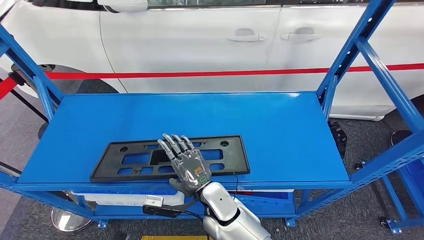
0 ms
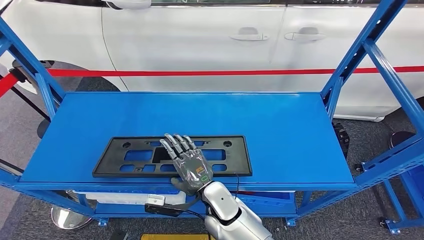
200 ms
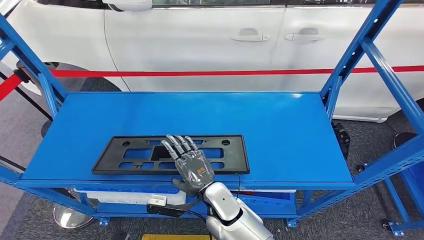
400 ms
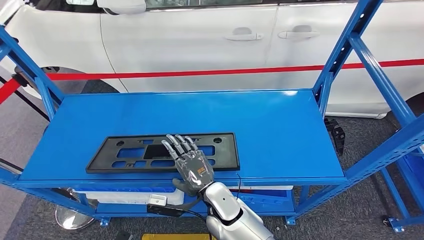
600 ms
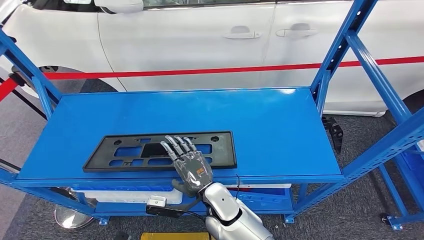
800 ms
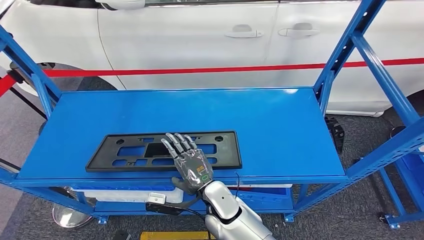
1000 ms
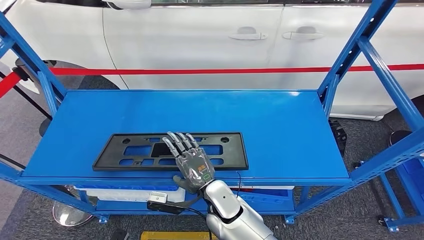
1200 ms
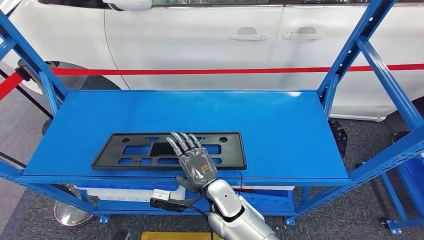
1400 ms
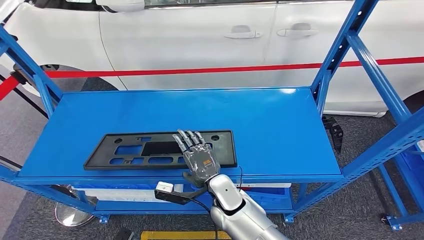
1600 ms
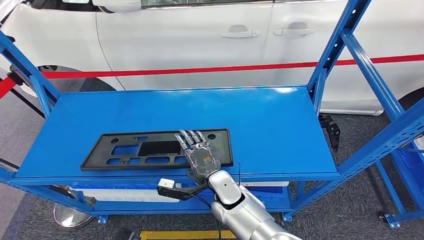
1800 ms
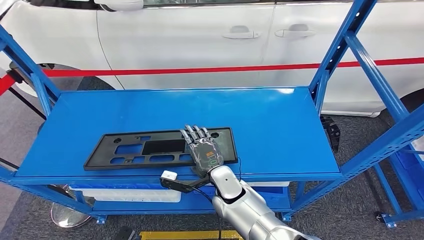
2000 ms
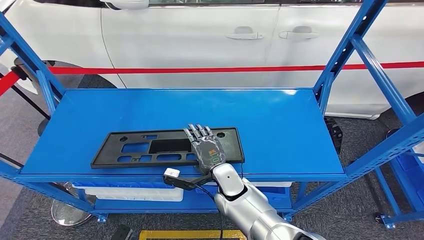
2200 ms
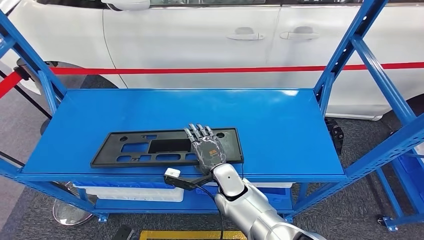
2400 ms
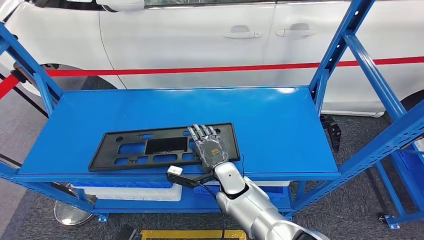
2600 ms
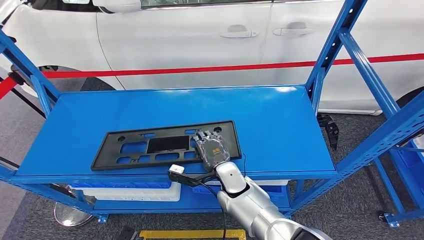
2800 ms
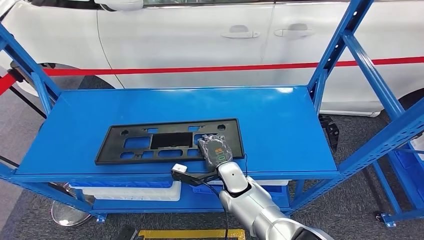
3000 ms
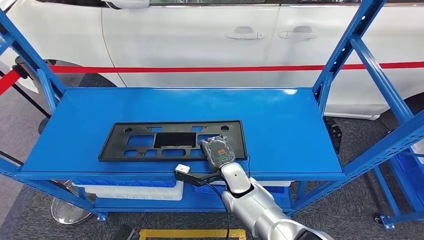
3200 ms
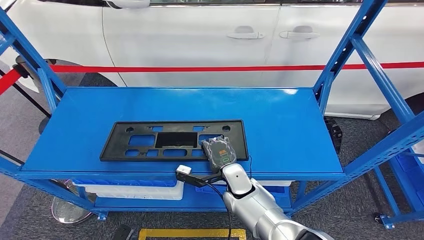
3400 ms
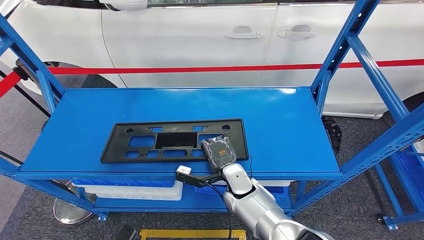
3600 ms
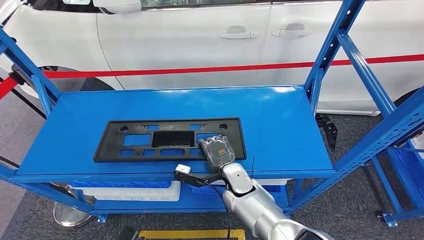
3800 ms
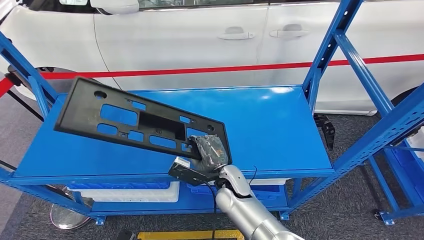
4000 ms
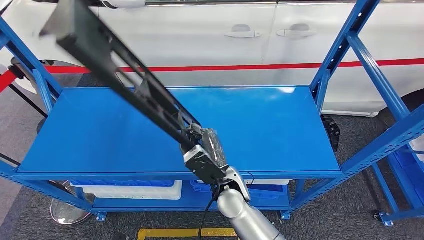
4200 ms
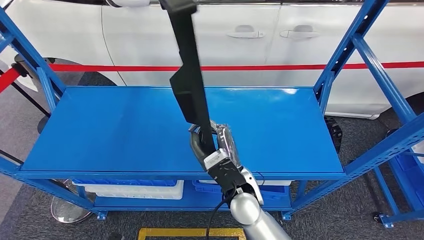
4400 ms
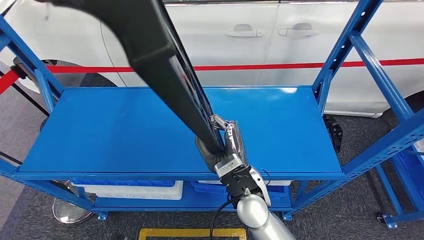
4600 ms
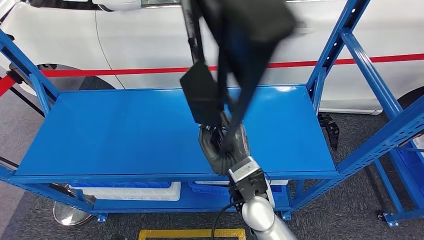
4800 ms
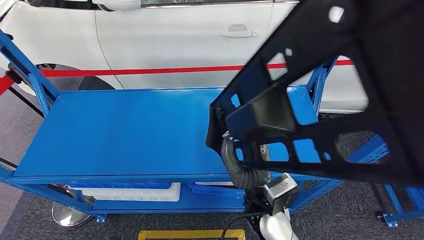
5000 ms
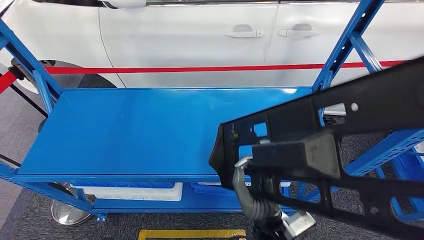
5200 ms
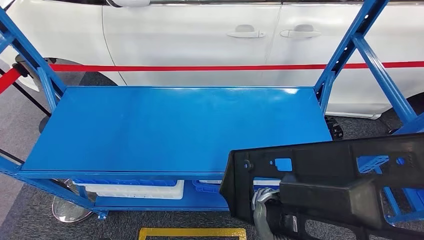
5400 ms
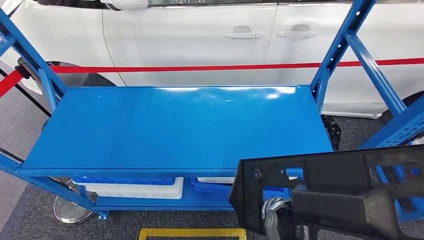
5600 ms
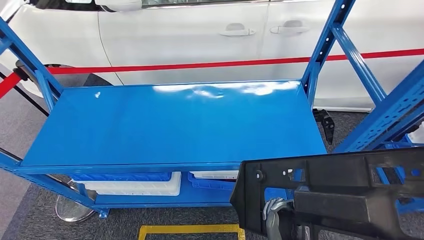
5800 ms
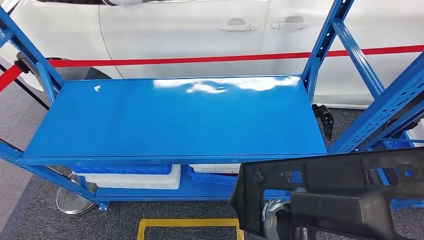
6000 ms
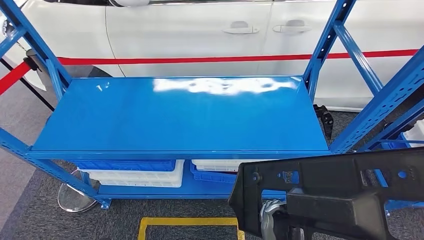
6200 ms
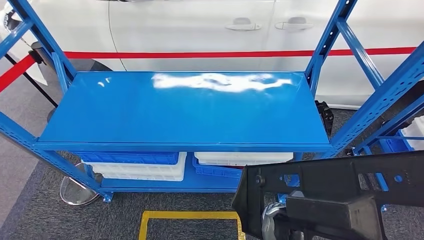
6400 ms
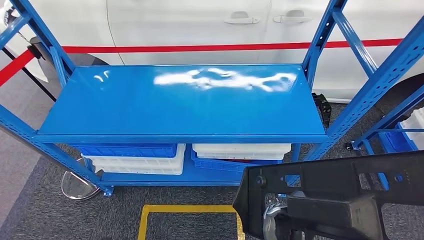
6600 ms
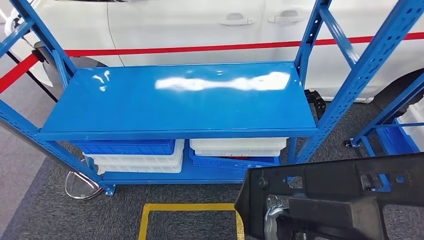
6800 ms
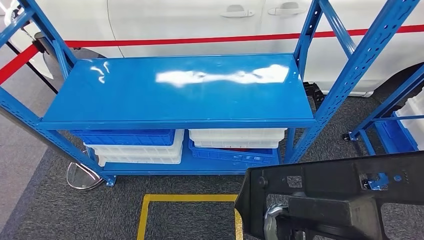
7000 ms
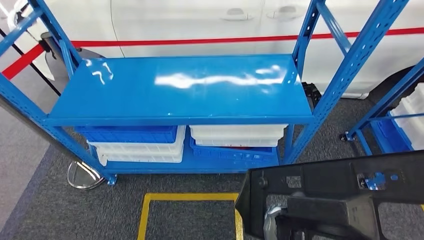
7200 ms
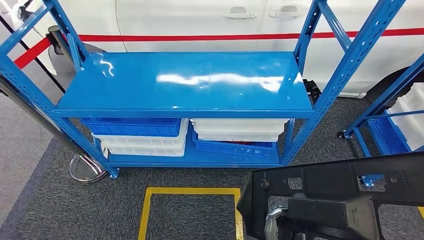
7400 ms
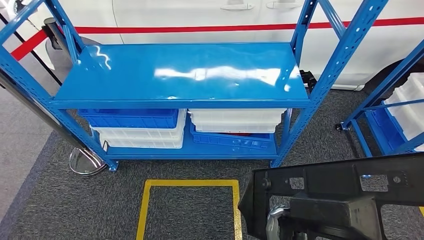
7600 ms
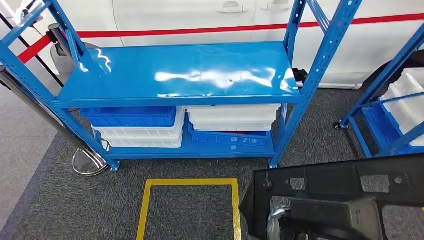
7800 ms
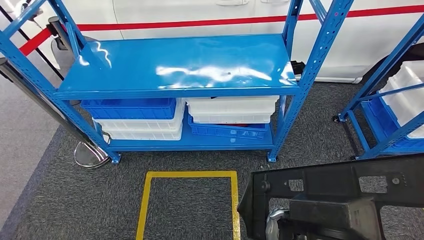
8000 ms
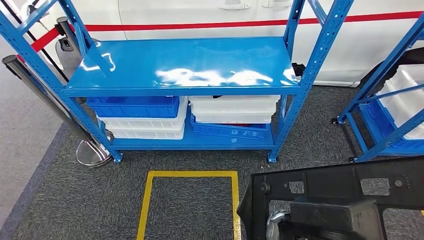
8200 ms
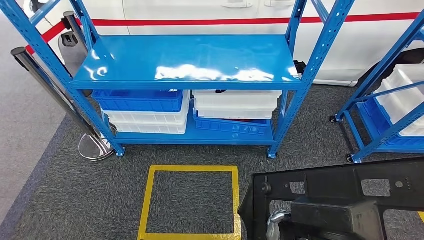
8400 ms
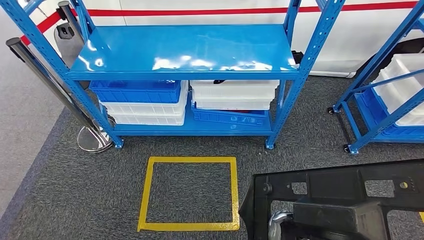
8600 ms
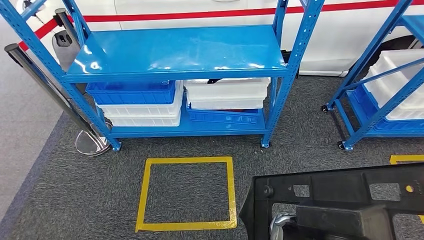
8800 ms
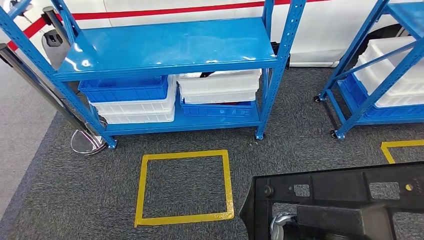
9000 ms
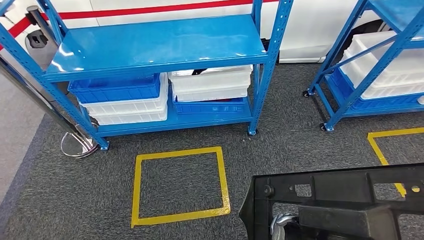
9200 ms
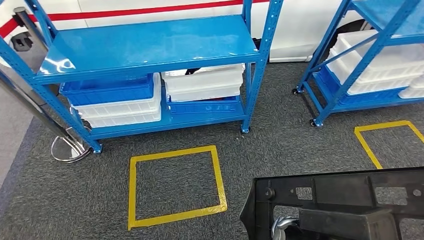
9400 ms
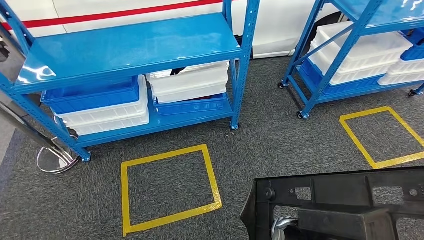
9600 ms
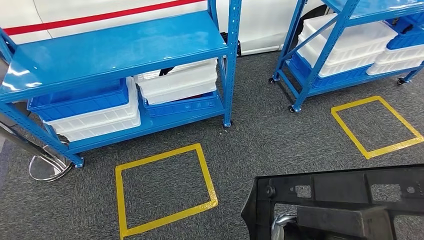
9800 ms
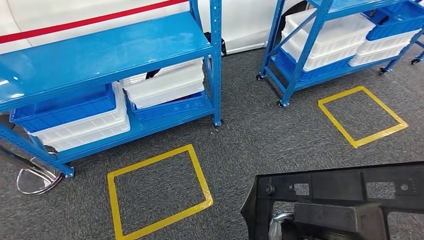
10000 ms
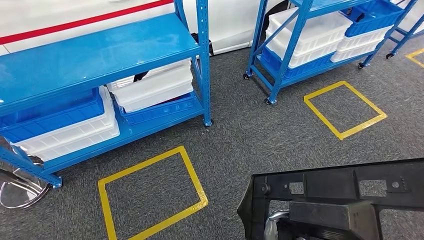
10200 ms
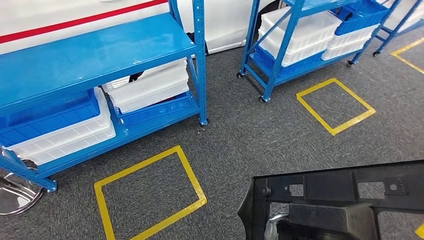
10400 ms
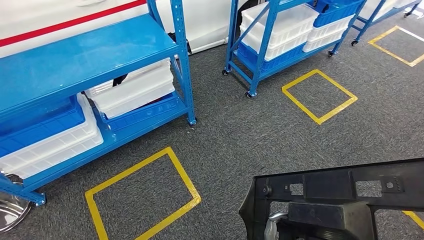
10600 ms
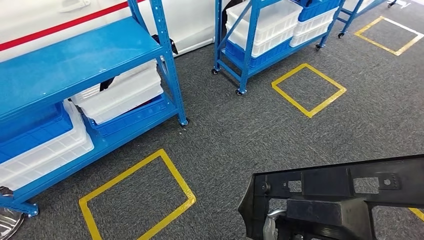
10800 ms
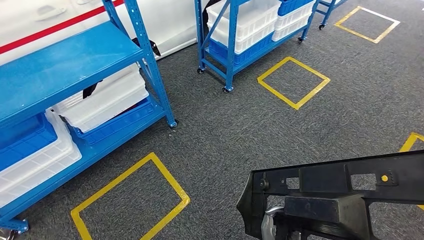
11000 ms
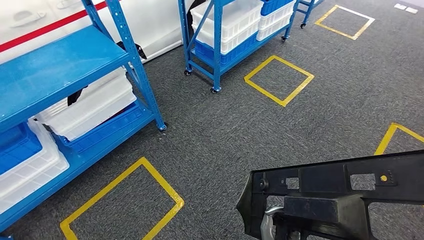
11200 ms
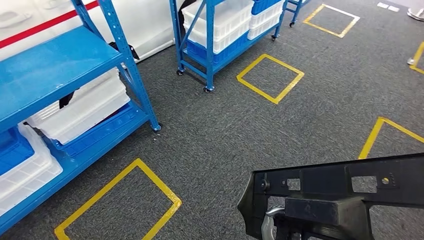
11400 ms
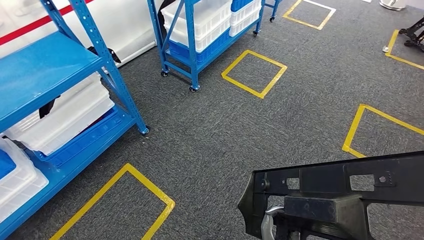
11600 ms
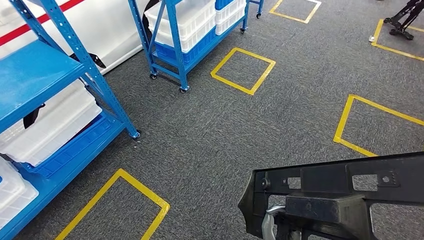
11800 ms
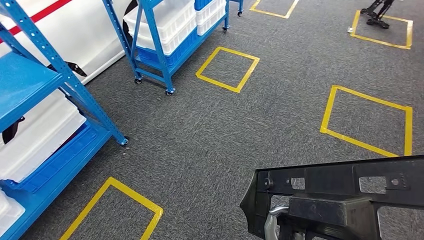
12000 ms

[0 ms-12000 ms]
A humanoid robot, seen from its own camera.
Step, 0 ms to 4800 ms: Pick up the large material from the shelf.

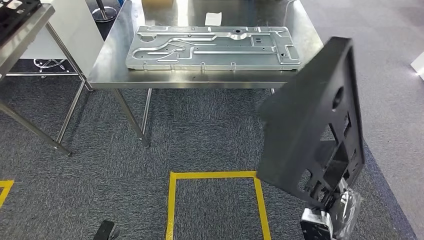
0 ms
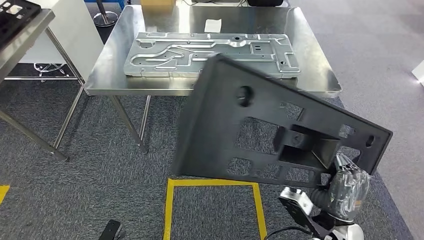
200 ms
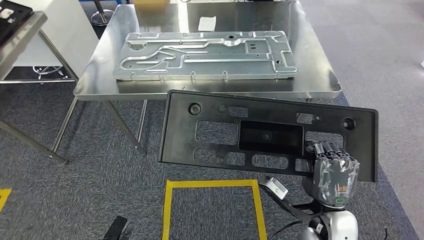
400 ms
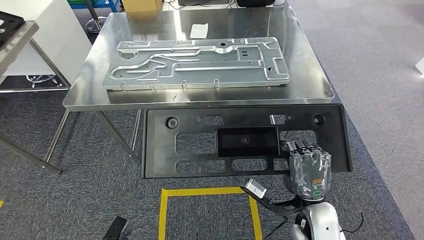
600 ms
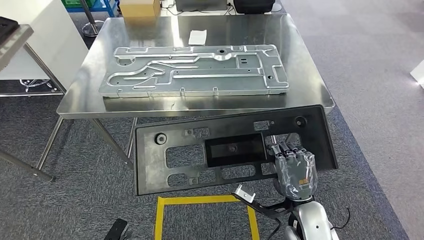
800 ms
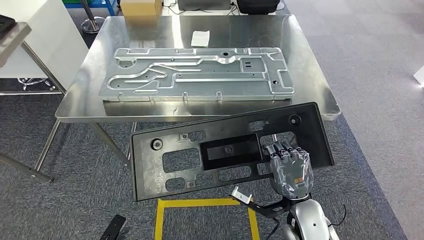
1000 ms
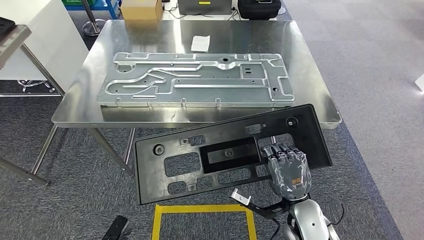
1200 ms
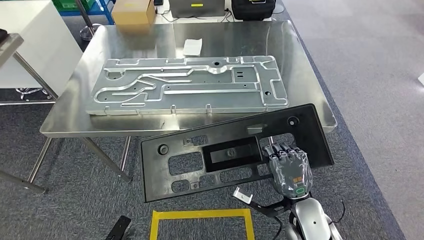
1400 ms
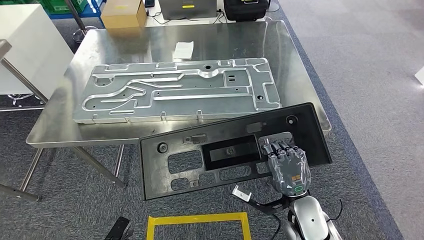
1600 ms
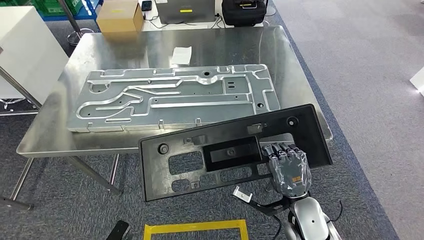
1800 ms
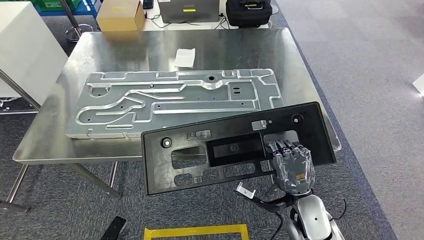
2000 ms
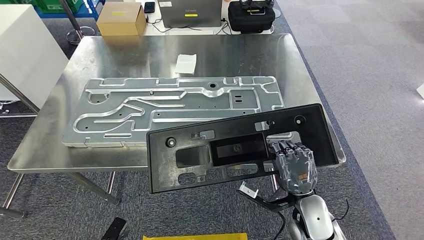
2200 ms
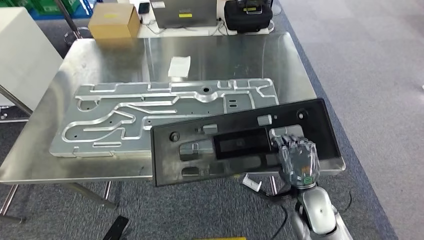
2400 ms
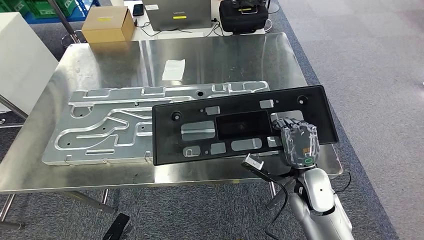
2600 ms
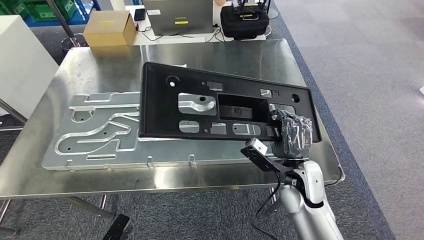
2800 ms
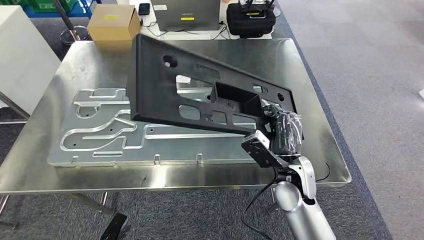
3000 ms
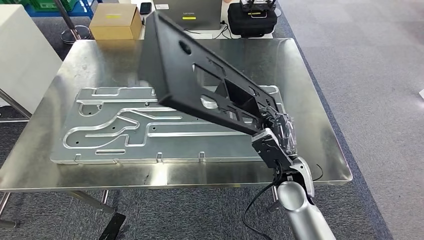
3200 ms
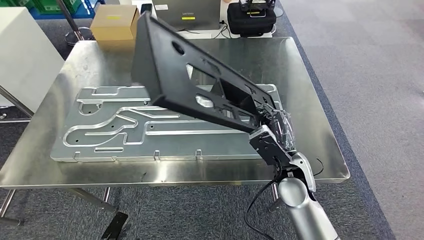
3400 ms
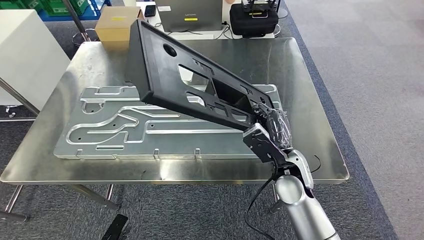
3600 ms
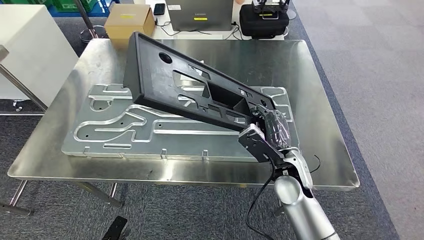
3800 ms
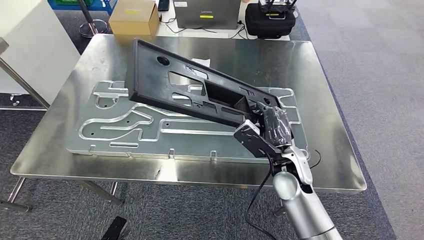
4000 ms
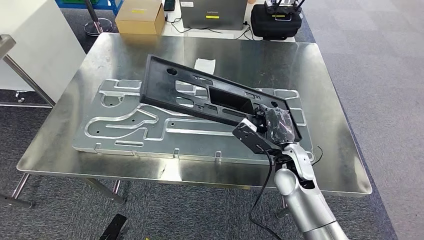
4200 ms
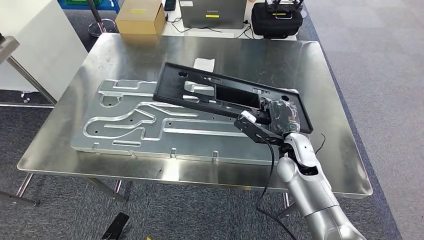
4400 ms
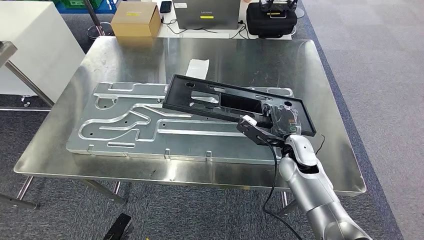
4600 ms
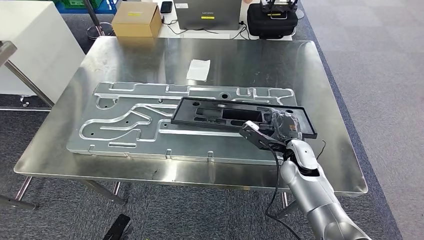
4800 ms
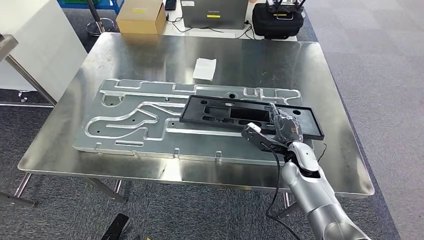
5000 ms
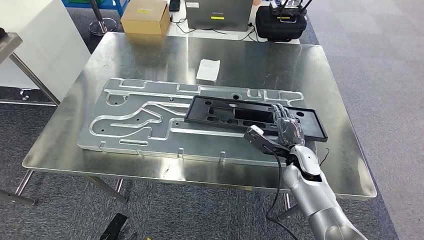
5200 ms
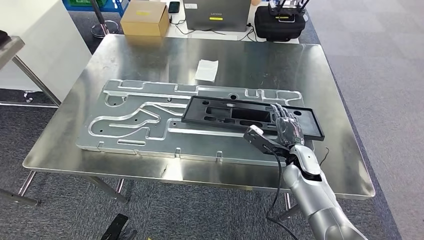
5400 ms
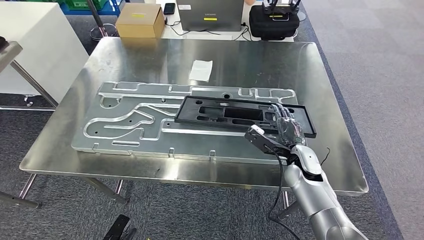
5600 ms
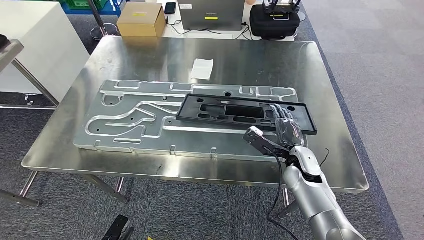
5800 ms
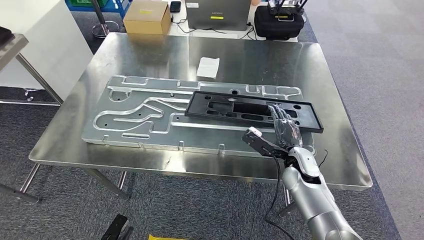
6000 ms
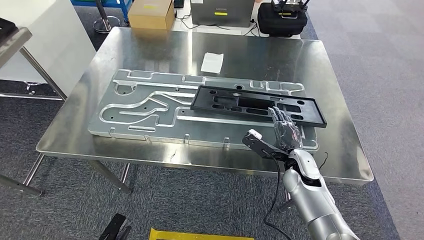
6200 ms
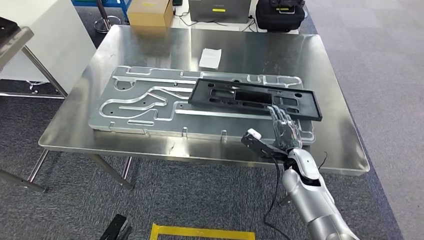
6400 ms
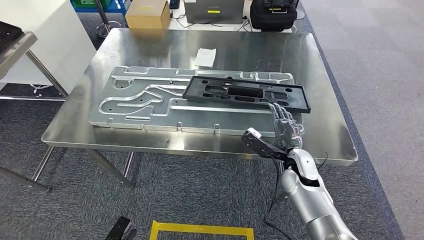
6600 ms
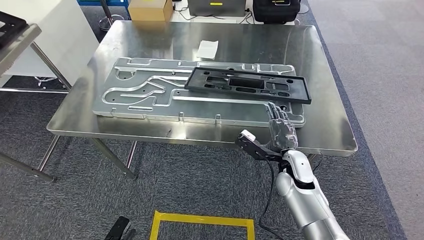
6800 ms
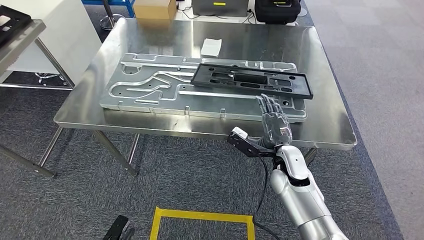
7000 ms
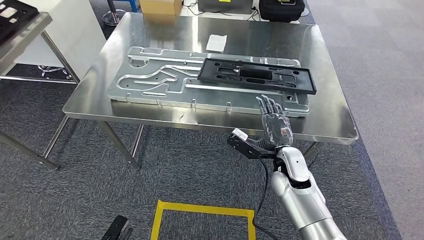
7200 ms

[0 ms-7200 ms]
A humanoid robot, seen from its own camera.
Step, 0 ms to 2000 ms: Move the large material to the workbench.
